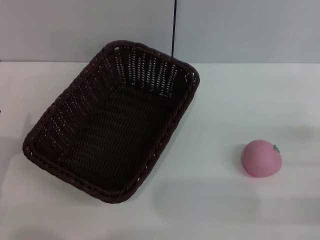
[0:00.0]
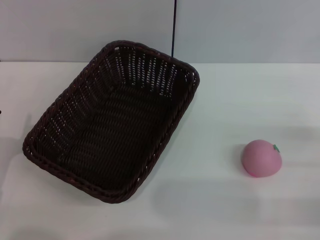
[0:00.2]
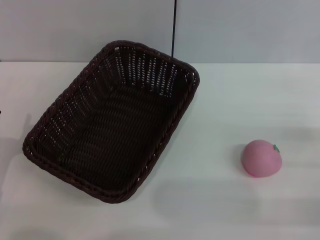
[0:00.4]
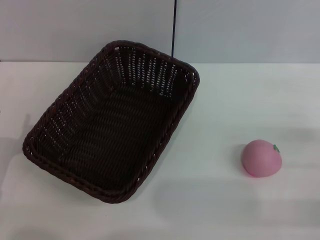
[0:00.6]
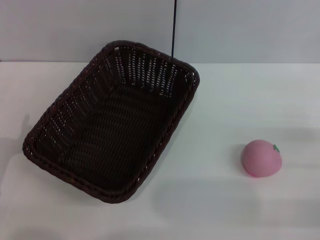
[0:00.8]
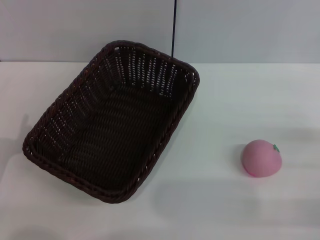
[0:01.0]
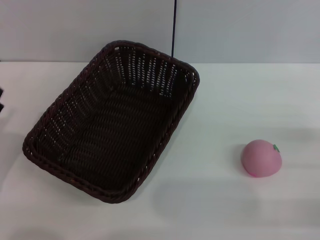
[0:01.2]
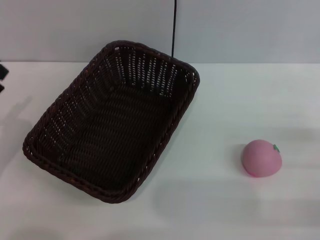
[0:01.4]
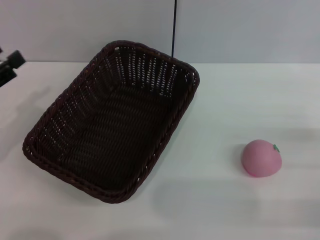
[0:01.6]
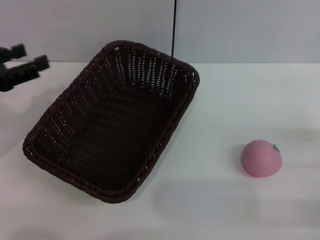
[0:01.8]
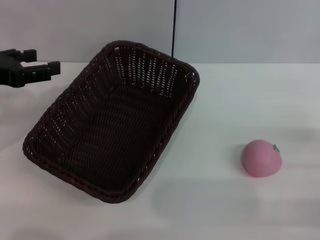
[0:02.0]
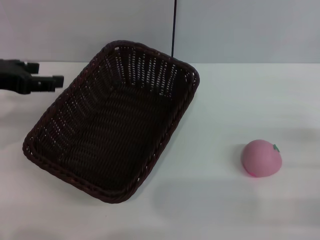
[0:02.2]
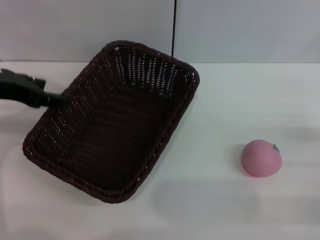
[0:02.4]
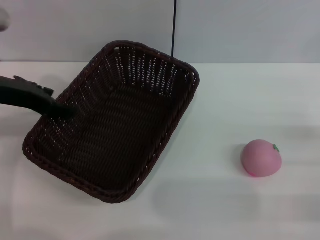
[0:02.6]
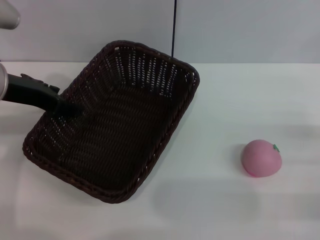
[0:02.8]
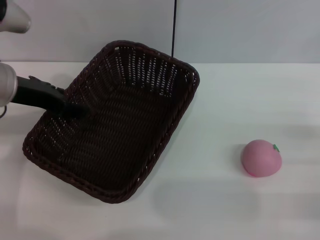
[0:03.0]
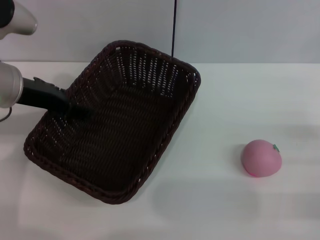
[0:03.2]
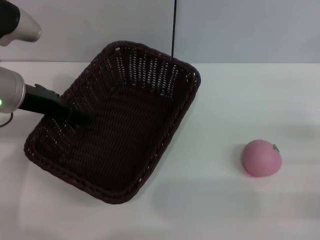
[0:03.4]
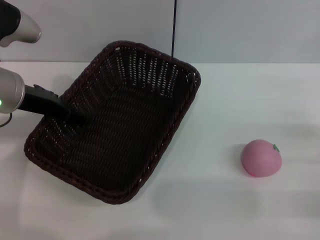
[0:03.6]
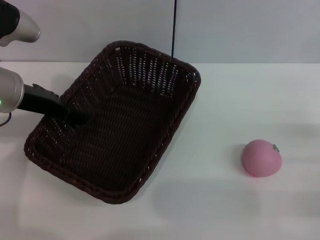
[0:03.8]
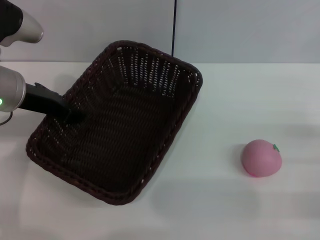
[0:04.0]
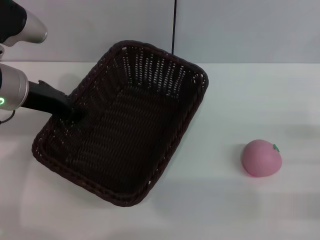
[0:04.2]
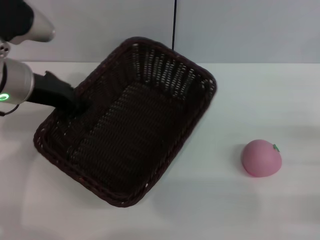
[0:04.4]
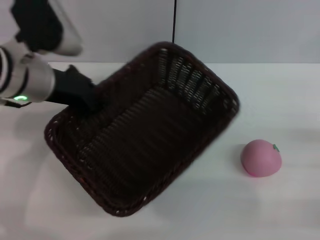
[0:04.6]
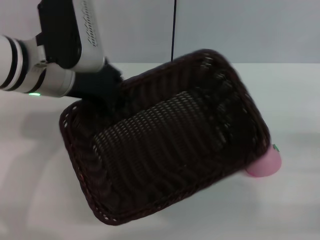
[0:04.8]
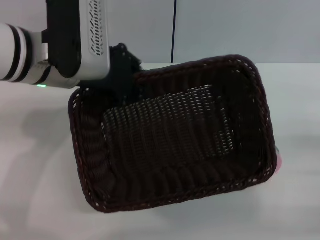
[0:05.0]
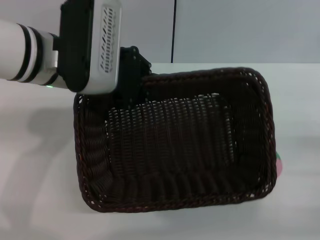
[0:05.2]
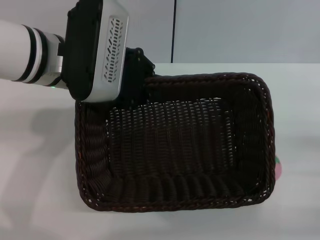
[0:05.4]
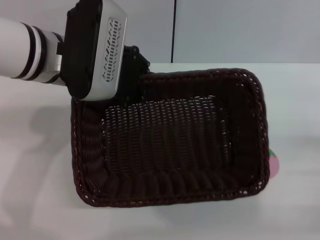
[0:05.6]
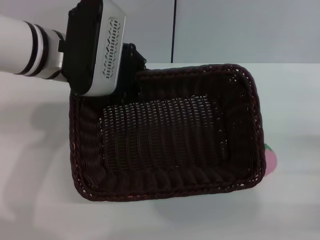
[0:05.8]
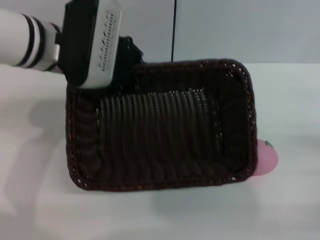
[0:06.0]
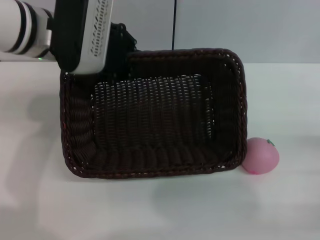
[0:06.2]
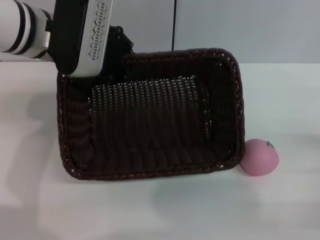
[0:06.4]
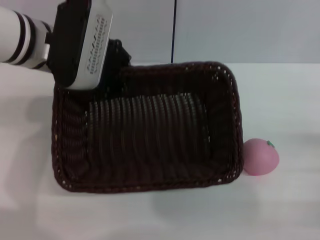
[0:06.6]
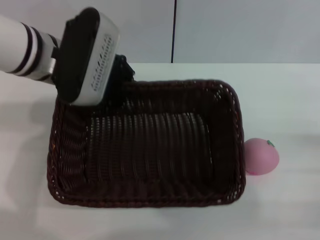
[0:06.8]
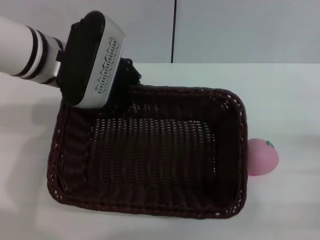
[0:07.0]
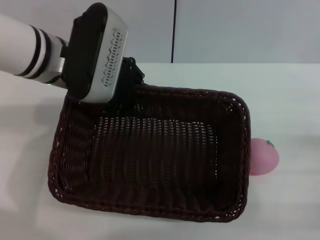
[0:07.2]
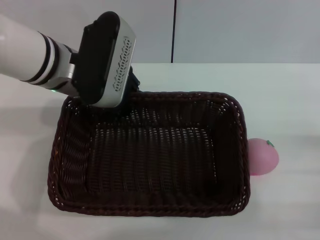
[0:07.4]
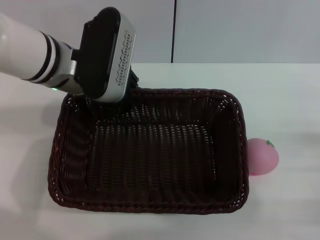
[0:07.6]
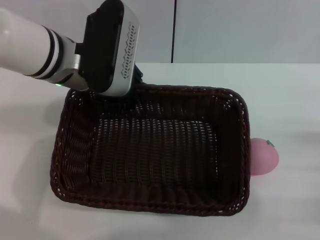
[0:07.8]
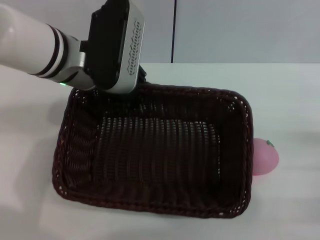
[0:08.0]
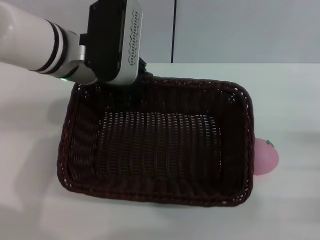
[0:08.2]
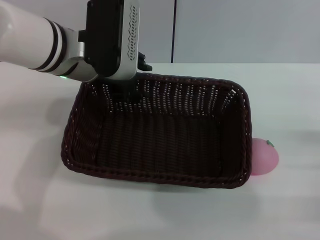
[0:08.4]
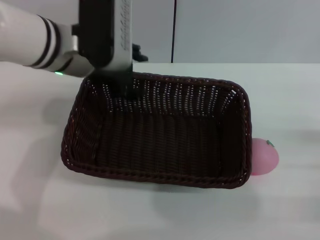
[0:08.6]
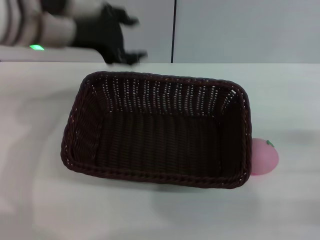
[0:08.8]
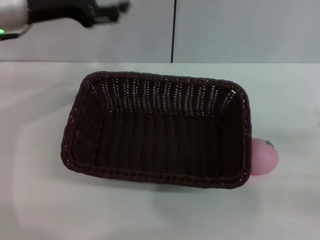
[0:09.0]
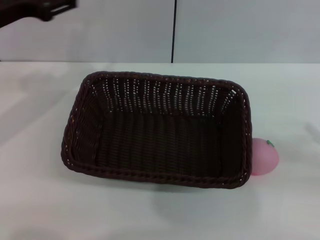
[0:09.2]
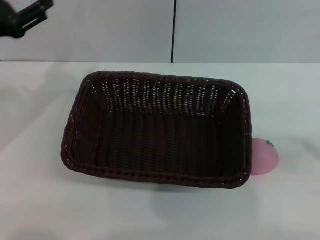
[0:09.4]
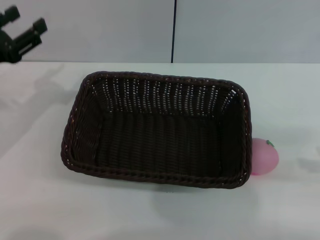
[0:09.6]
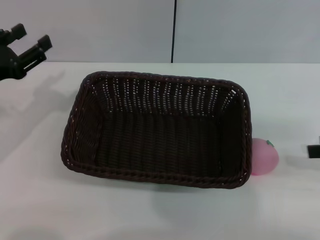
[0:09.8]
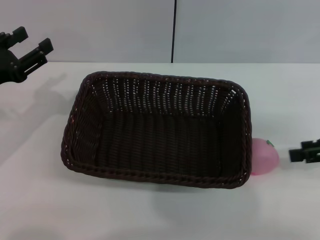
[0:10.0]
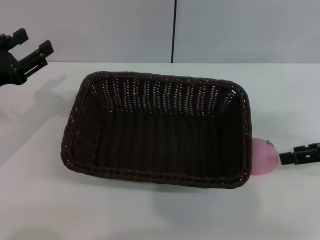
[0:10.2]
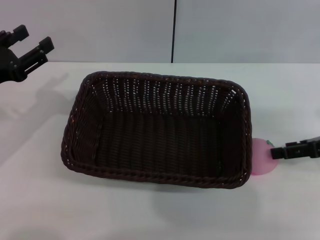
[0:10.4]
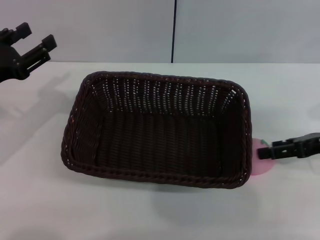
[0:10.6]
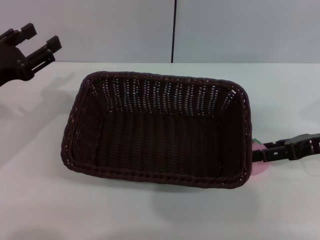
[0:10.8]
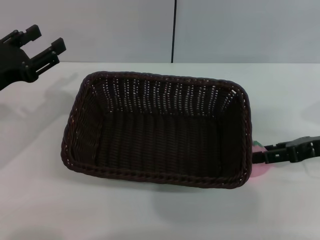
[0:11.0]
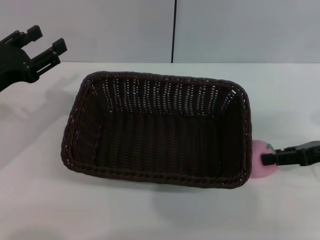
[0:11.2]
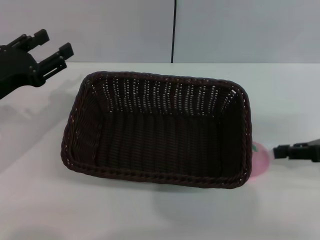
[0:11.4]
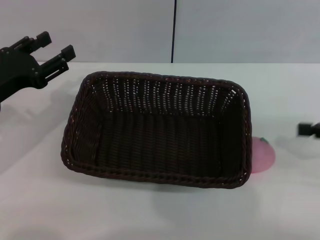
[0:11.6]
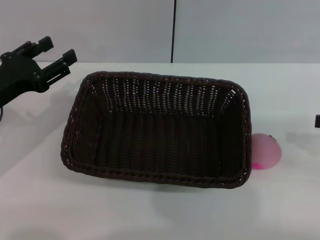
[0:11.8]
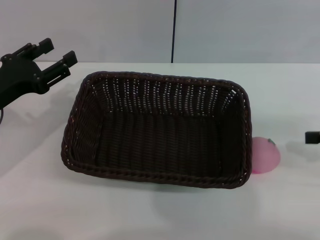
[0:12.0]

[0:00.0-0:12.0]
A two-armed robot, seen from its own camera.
Step, 0.0 to 4.6 s: Pick up the dark basket with the left gripper.
Step, 4.8 to 8.6 s: Place the dark basket in the center of view with the right gripper.
0.0 to 1.6 s: The left gripper shifts approximately 10 cm upward and forward.
1.6 to 3.0 s: The left gripper shifts some 15 cm to the right, forward and upward.
3.0 to 4.4 s: The left gripper closes its fingers.
4.4 to 6.0 s: The left gripper goes some 5 cm to the right.
7.6 to 9.0 s: The left gripper heads to the left and upward, covering about 10 cm, and opens its fingers.
9.0 to 10.4 s: The left gripper heads downward, backward and to the left, covering approximately 15 cm; the right gripper heads forward, covering about 10 cm.
10.4 to 12.0 s: The right gripper closes its fingers.

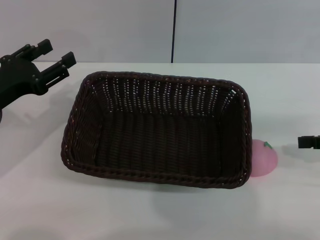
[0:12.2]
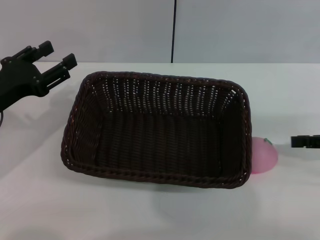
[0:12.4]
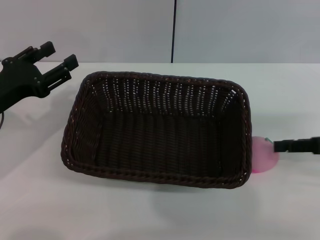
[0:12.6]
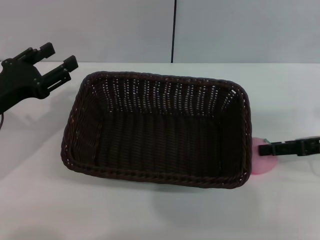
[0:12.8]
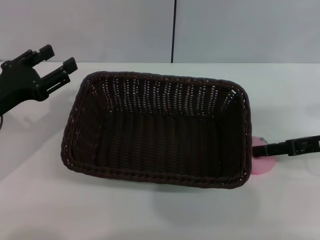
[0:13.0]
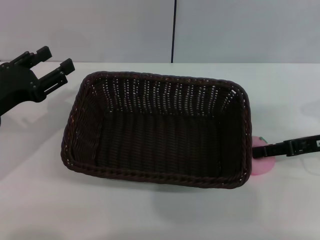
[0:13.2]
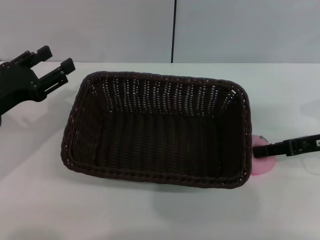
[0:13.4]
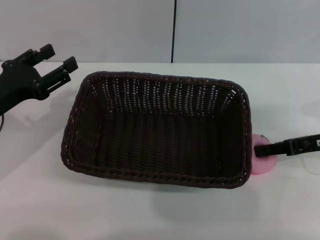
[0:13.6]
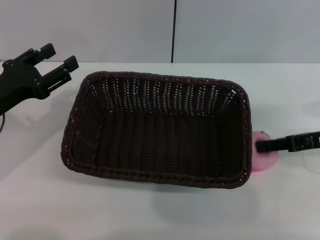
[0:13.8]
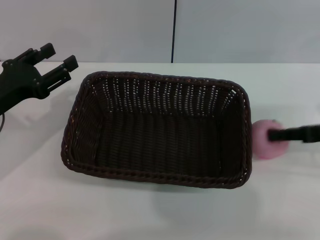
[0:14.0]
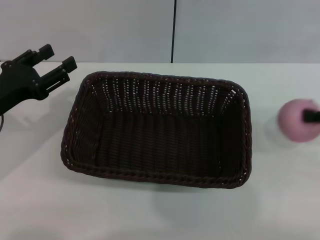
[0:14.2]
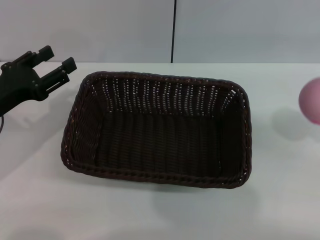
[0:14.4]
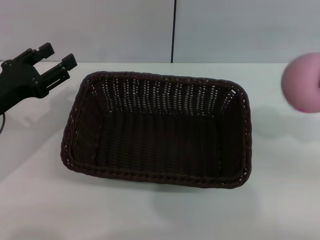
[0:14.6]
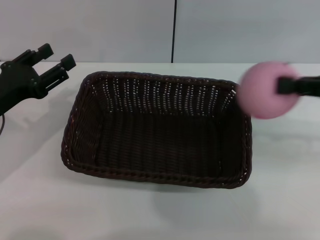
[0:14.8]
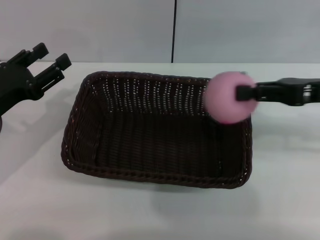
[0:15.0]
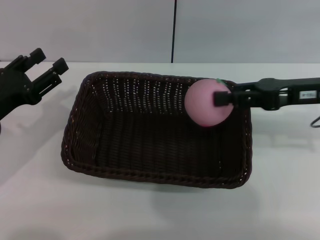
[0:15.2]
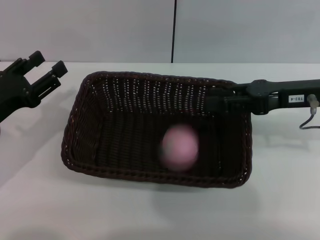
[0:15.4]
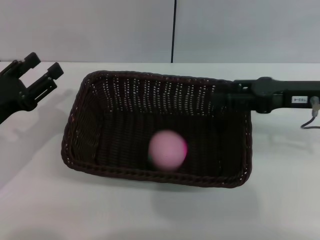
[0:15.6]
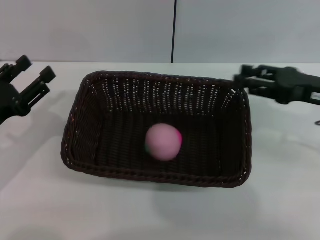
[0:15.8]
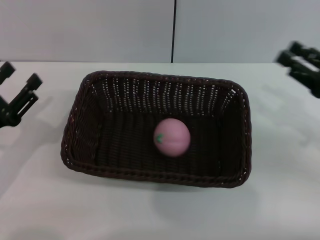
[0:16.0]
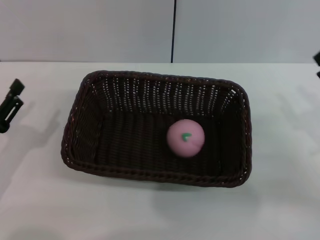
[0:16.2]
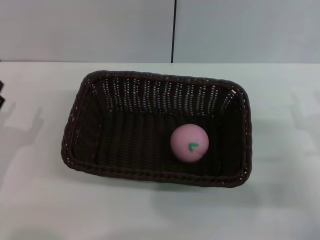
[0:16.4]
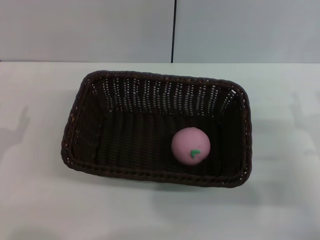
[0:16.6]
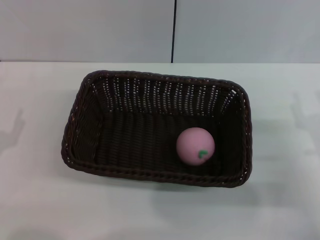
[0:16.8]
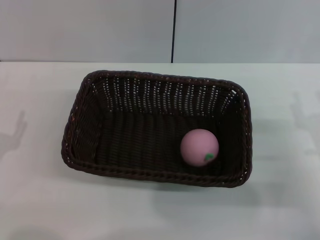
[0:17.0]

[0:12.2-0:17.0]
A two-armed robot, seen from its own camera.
Step, 14.4 to 15.6 s: Place the peach into the basket with the left gripper.
12.2 to 13.8 s: The right gripper goes roughly 5 cm to the left, and opens, then closes again.
13.8 to 15.4 s: The right gripper goes some 10 cm to the left and upward.
15.4 to 17.0 s: The right gripper is displaced downward and backward by approximately 15 cm; the left gripper is displaced backward and downward by roughly 10 cm.

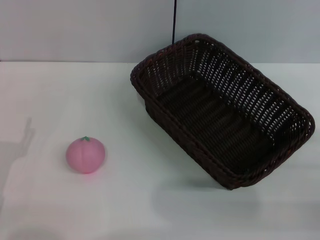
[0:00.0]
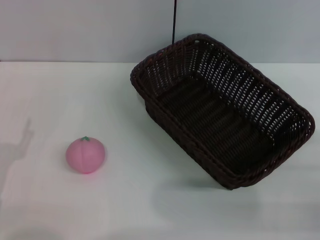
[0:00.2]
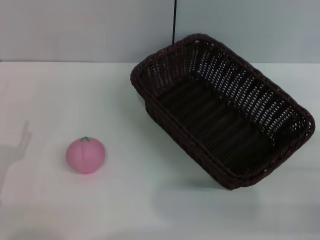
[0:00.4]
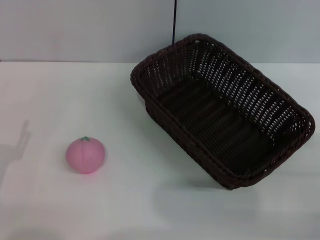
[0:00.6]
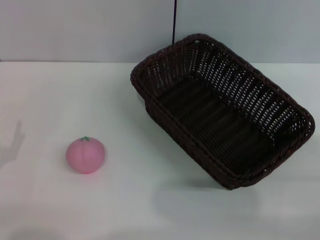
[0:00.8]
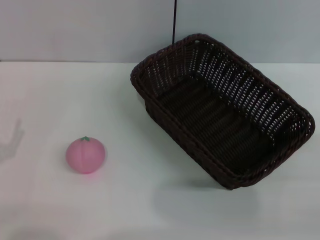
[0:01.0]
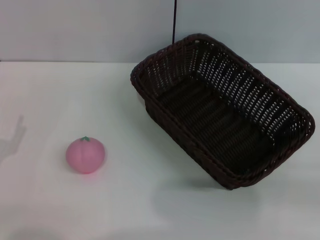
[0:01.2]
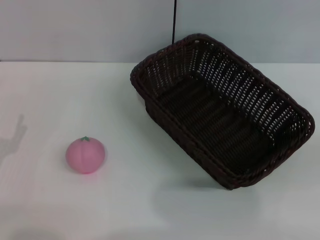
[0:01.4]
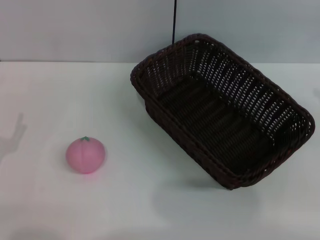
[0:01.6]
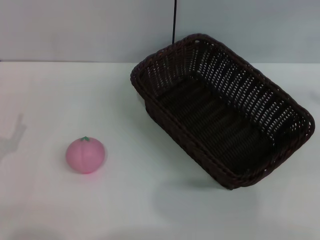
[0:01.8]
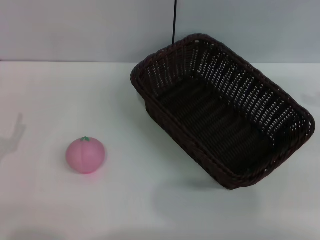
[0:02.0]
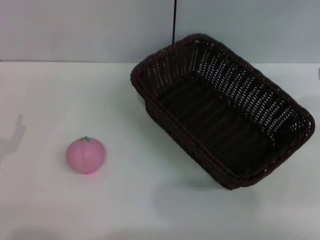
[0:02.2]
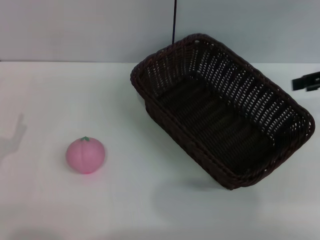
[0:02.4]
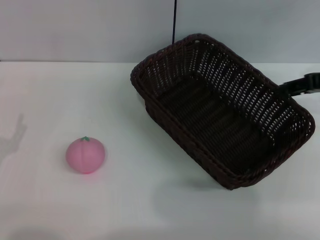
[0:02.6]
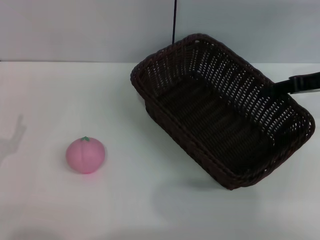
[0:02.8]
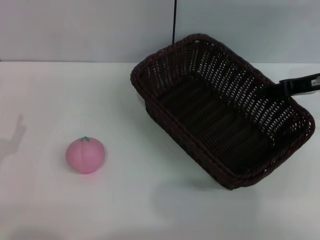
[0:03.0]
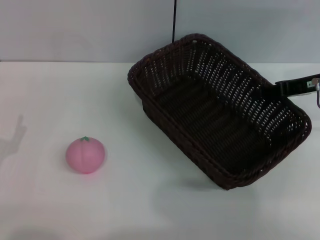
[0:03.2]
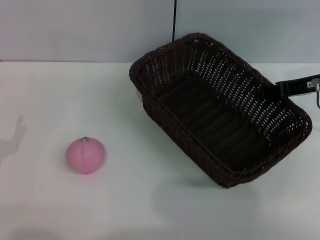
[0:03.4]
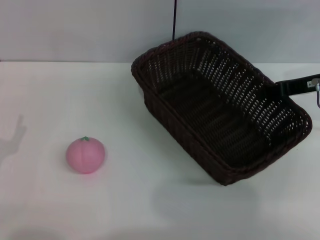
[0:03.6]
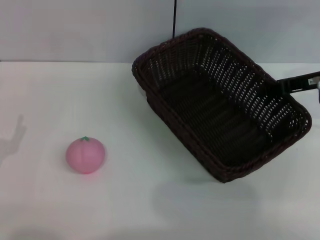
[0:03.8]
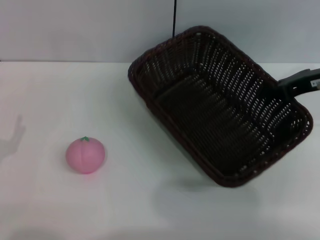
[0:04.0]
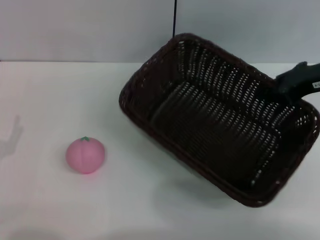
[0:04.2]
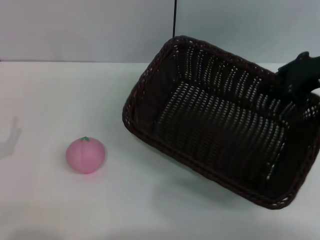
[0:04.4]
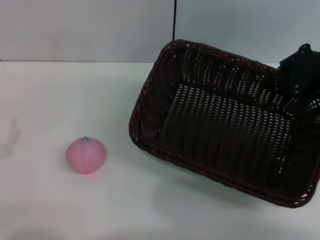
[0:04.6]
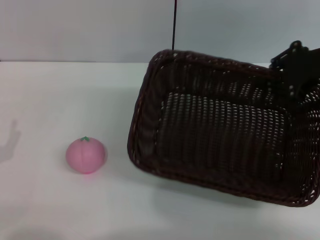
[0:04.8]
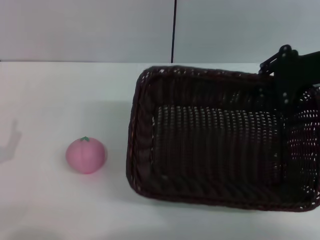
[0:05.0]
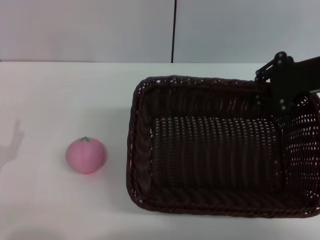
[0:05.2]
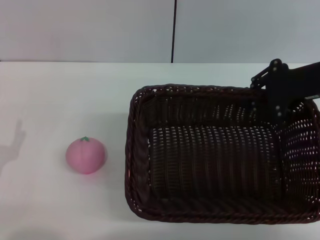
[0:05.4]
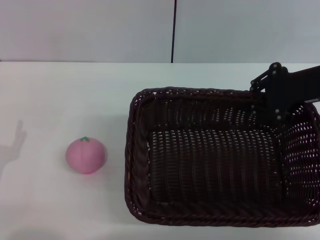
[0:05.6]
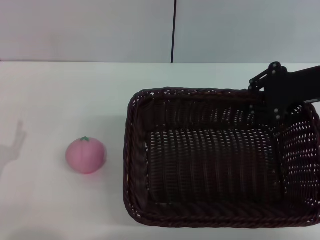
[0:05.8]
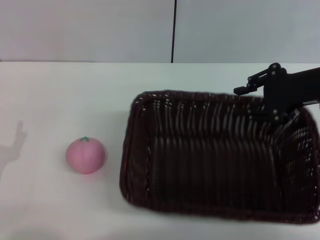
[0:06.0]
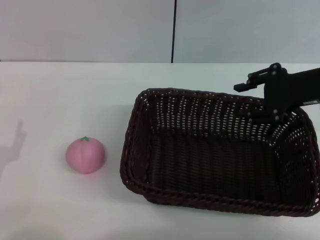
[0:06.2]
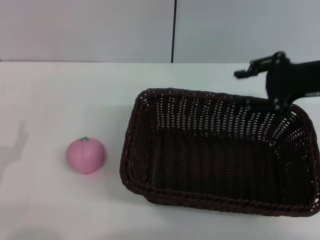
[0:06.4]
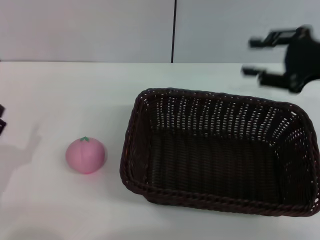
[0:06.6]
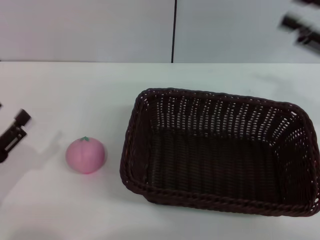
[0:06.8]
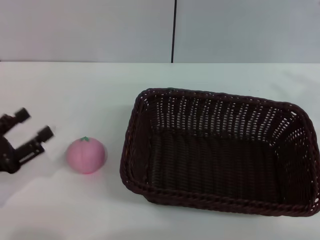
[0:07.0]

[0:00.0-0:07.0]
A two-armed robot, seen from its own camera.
Step, 0.0 to 4.4 s: Pick up the dark basket with the right gripper.
Step, 4.8 to 6.4 s: Place the dark basket in the center of view with the right gripper.
0.0 to 1.4 s: The right gripper moves upward and to the right, approximately 15 cm.
1.4 to 2.8 s: The right gripper is displaced forward and to the left by about 20 cm.
2.8 to 4.2 s: The right gripper closes up.
5.6 to 7.0 s: The right gripper heads to the right and backward, covering roughly 10 cm, and opens up, while the left gripper ends up approximately 5 cm from where it was.
